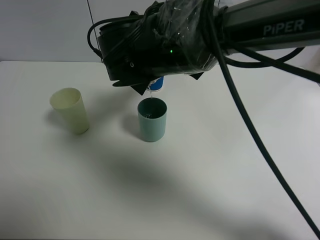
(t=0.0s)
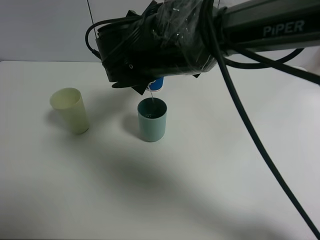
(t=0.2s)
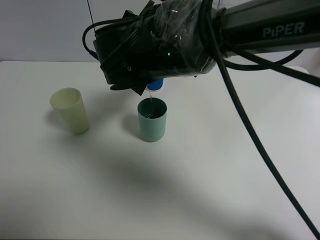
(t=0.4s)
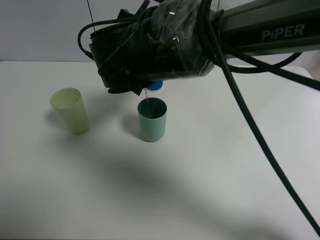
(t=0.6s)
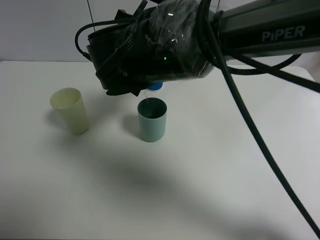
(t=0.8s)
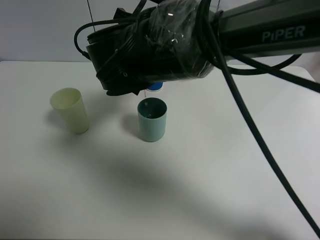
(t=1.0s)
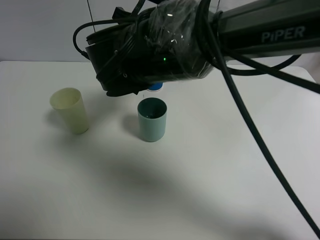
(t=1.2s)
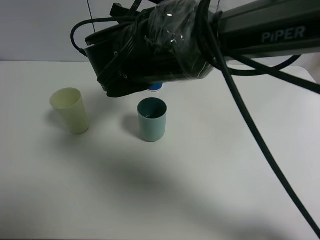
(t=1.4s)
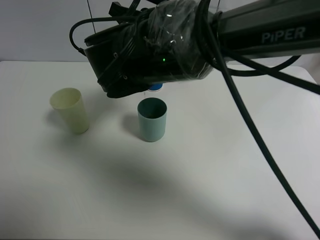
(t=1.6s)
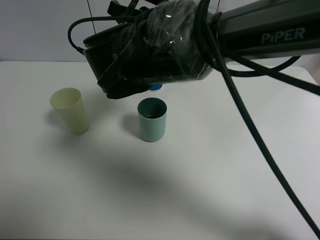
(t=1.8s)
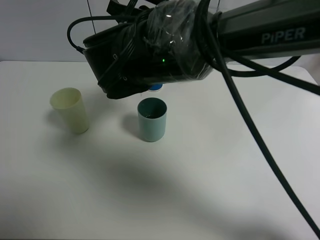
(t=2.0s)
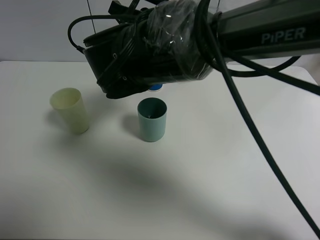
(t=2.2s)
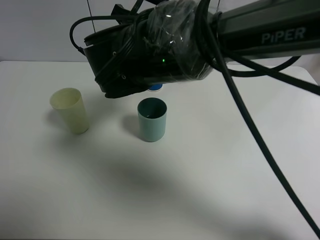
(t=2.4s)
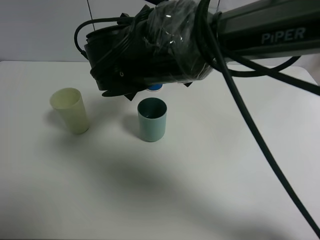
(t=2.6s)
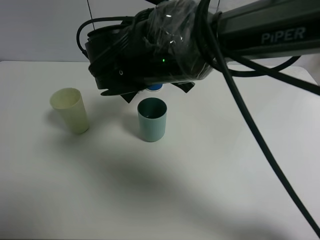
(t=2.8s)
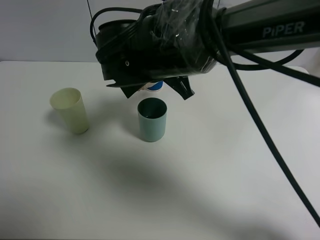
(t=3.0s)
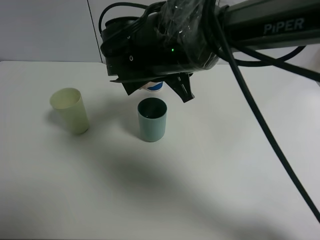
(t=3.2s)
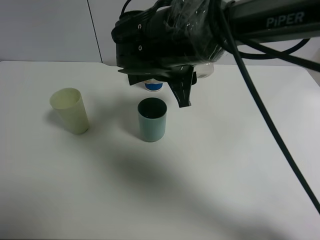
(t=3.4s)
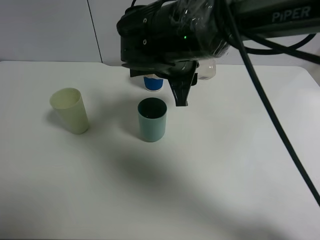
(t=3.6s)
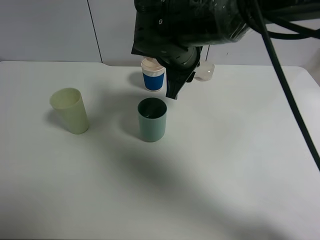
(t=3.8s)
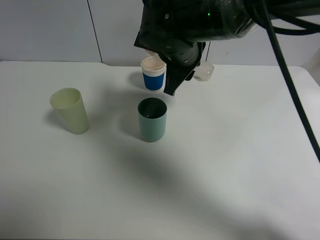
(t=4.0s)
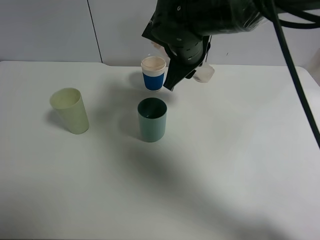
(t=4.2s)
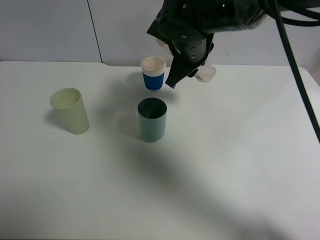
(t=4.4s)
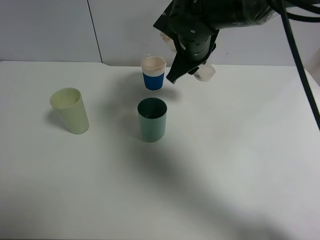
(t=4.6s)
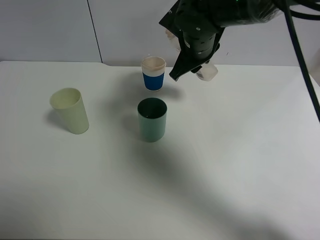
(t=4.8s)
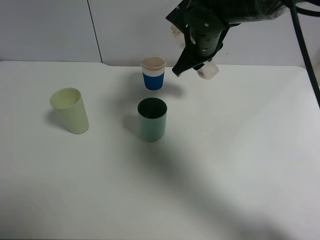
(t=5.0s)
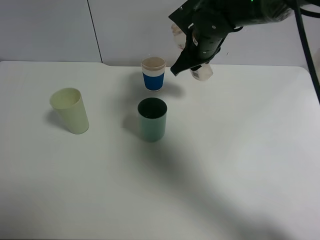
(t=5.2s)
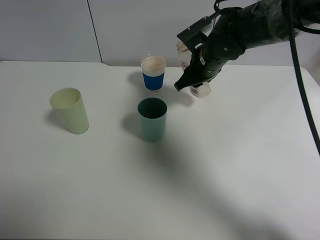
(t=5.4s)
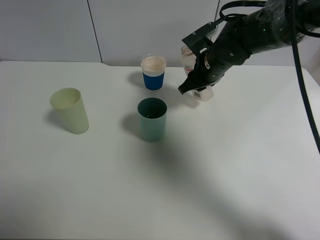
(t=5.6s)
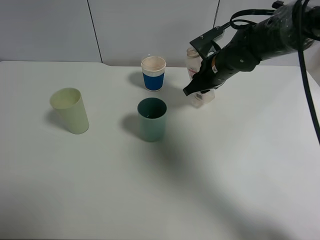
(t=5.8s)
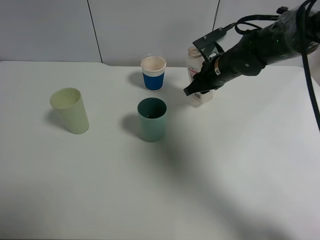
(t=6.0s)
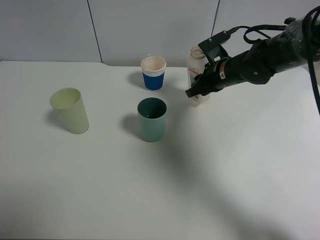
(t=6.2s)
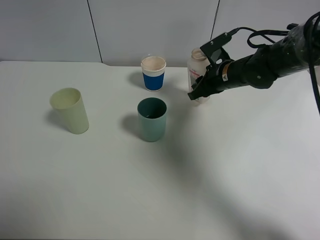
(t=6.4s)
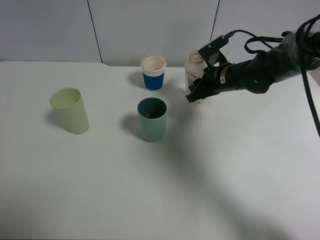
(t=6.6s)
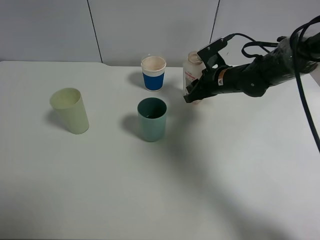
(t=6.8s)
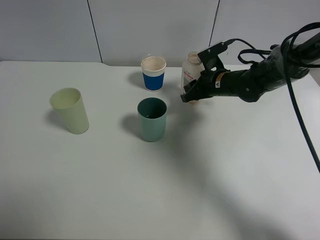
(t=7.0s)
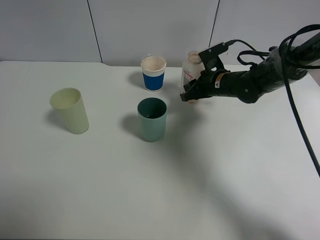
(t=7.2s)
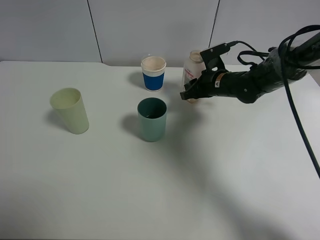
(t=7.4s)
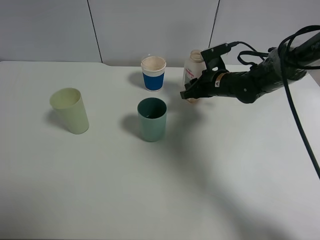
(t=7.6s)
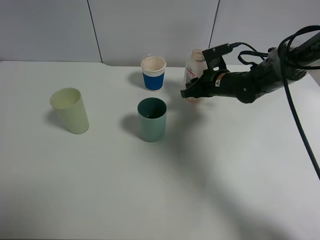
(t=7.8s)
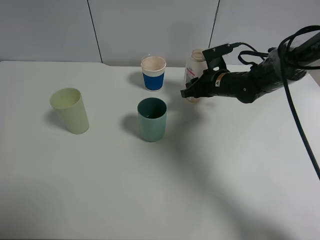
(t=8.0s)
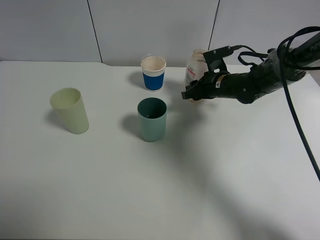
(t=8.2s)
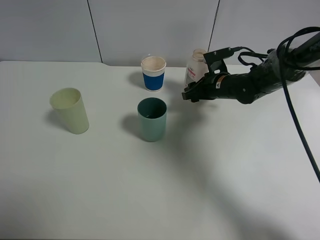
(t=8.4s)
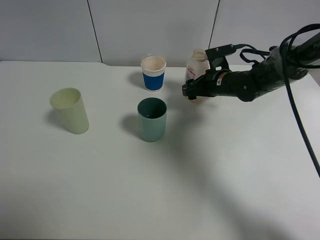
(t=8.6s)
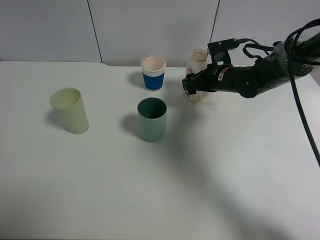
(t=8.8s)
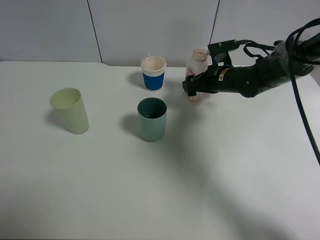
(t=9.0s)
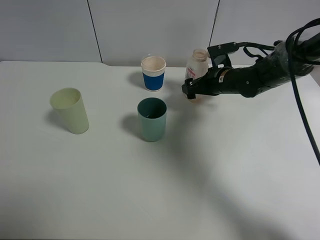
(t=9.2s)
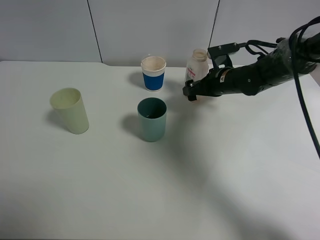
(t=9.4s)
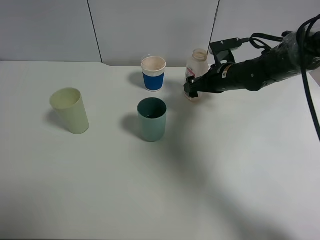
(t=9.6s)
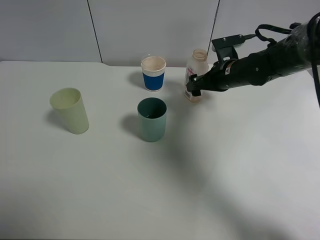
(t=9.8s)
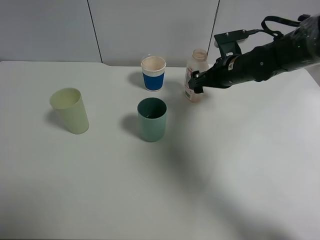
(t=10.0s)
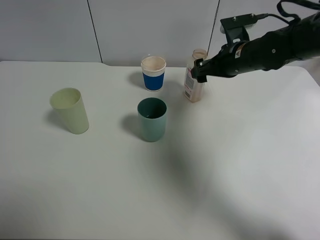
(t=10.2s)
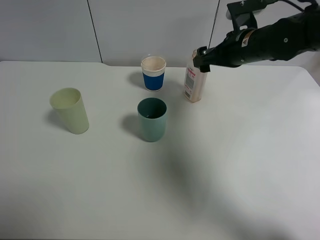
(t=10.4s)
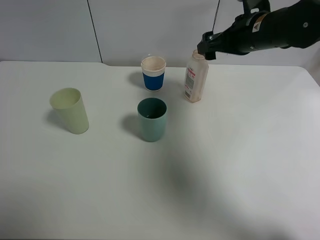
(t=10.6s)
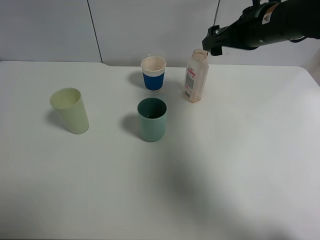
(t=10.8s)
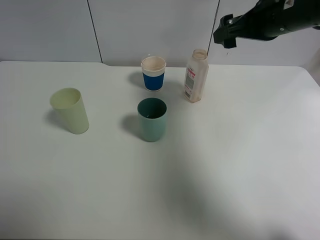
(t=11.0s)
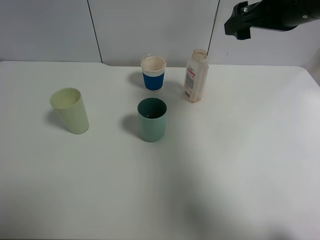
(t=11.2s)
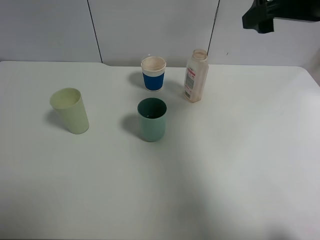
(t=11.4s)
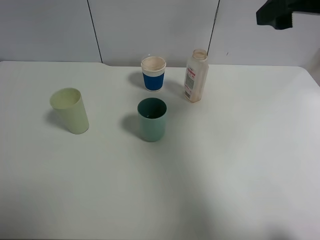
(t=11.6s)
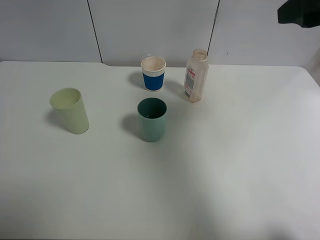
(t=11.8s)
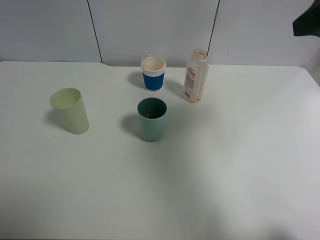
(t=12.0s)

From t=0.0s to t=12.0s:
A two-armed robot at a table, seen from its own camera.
Task of the whole recording: use a clamp to hold the bottle of the drink, pour the beverage into a random cup, then clamp the cup containing the drink and pour the drink into another random cup.
Step, from t=0.0s to t=3.6s: Pour the drink into the blue plastic cup with right gripper.
Step, from t=3.8s to t=10.0s: Place the drink bottle on the table with right gripper.
From t=0.0s to t=1.6s: The grippers make only small movements.
From t=3.0s to t=4.4s: The right gripper heads forward and to the right, covering about 10 cm.
From t=4.4s to t=6.0s: The right gripper heads to the right and downward, covering about 10 cm.
From t=6.0s to t=7.6s: The right gripper heads downward, covering about 5 cm.
From t=7.6s to t=9.0s: The right gripper opens its fingers.
From t=9.0s to t=10.4s: The right gripper moves upward, about 10 cm.
From t=10.4s to t=12.0s: The right gripper moves upward, backward and to the right, roughly 25 cm.

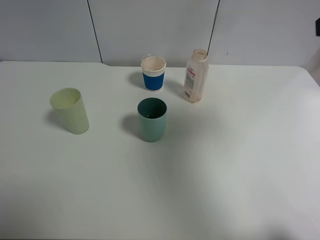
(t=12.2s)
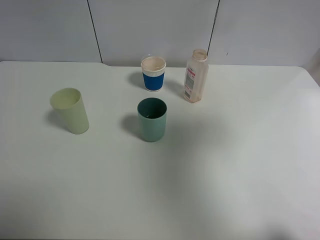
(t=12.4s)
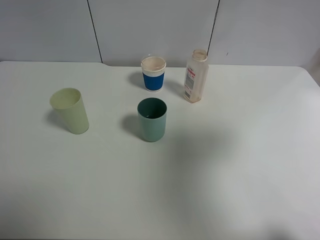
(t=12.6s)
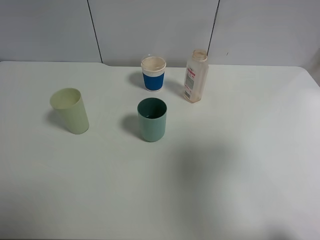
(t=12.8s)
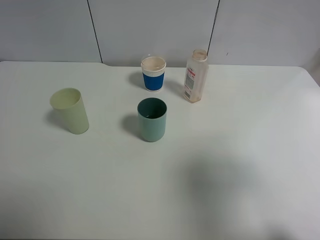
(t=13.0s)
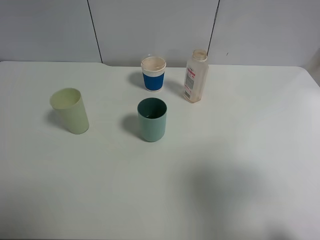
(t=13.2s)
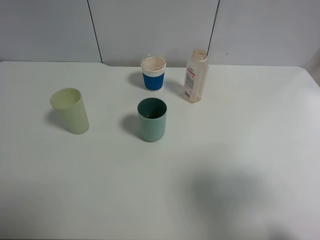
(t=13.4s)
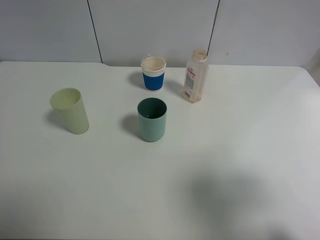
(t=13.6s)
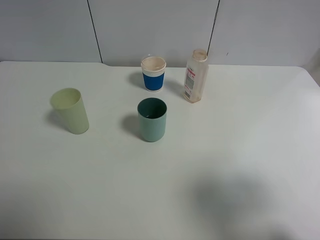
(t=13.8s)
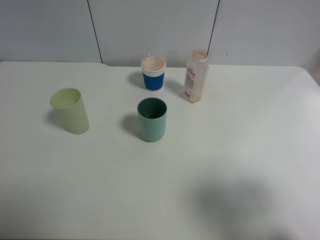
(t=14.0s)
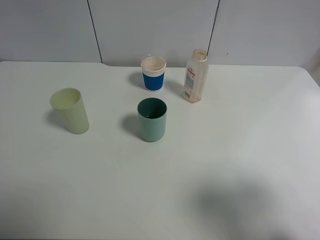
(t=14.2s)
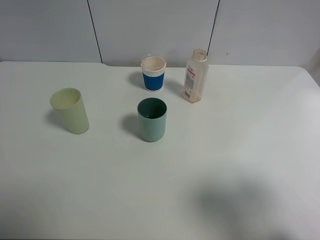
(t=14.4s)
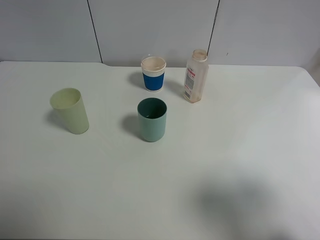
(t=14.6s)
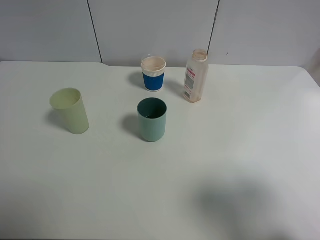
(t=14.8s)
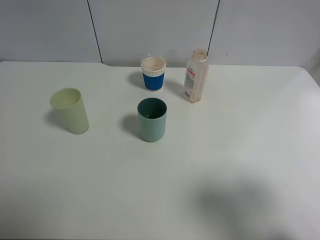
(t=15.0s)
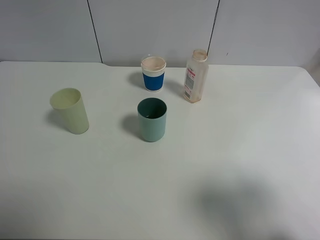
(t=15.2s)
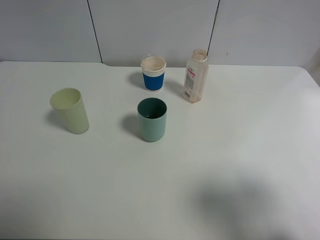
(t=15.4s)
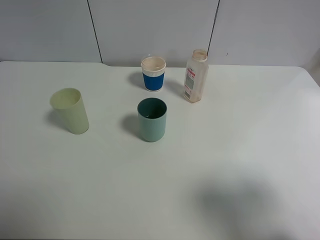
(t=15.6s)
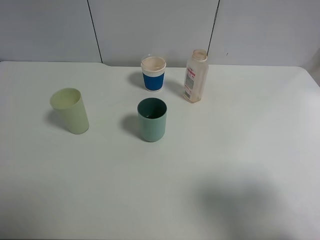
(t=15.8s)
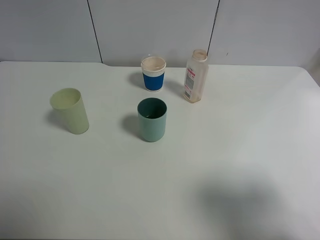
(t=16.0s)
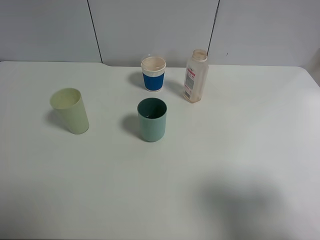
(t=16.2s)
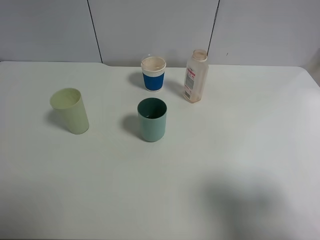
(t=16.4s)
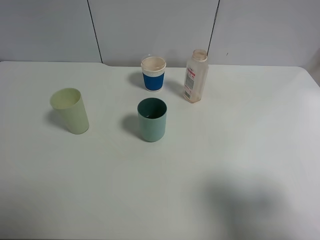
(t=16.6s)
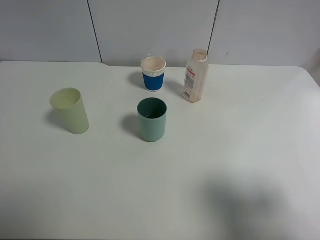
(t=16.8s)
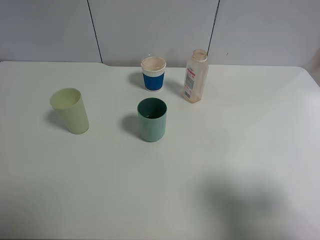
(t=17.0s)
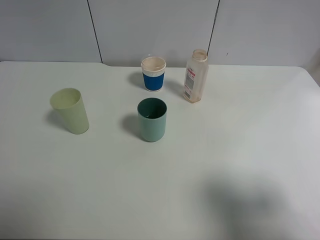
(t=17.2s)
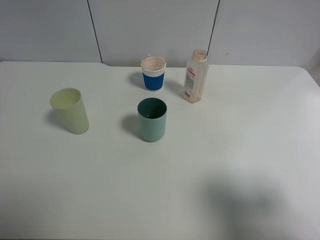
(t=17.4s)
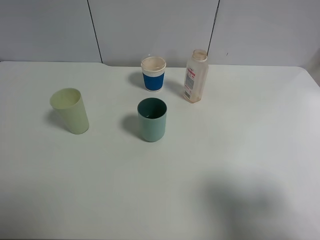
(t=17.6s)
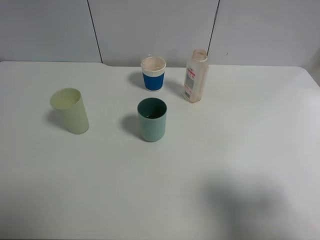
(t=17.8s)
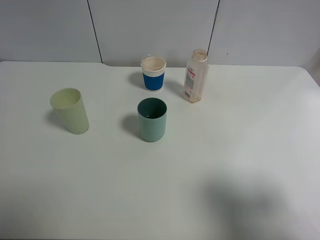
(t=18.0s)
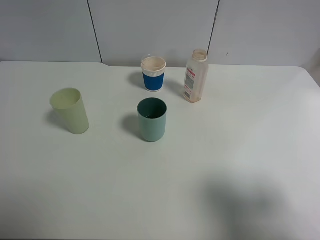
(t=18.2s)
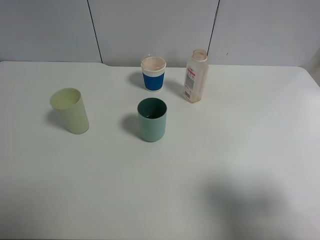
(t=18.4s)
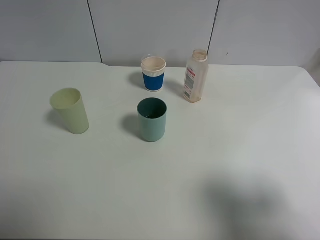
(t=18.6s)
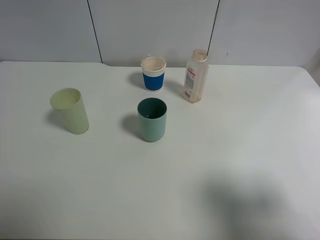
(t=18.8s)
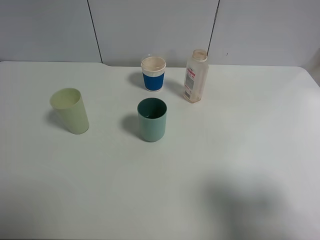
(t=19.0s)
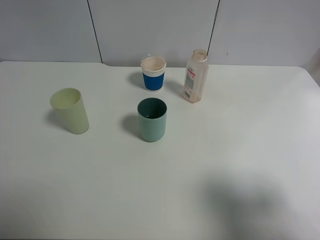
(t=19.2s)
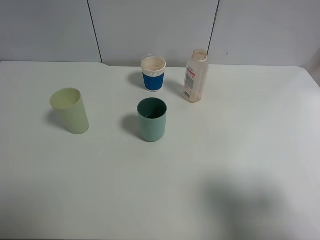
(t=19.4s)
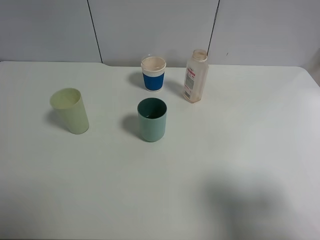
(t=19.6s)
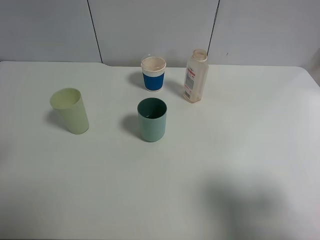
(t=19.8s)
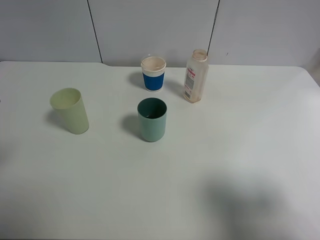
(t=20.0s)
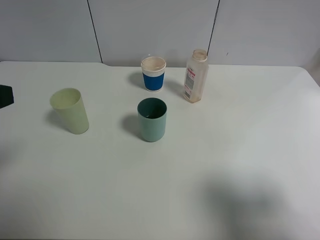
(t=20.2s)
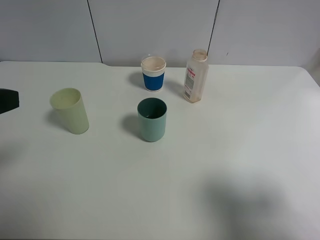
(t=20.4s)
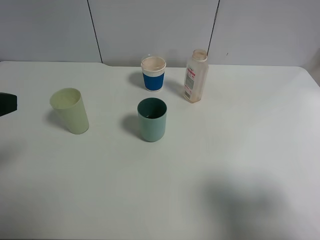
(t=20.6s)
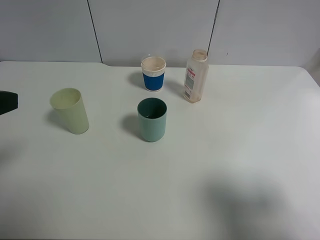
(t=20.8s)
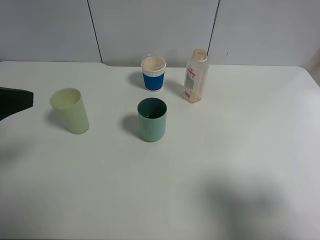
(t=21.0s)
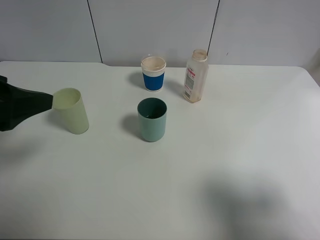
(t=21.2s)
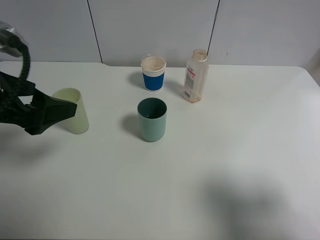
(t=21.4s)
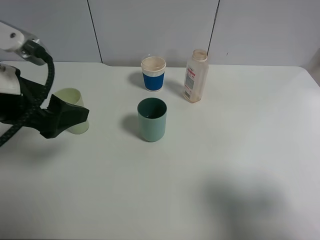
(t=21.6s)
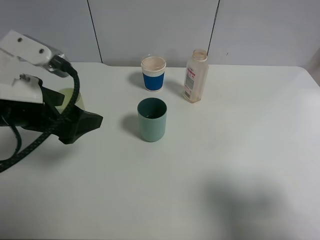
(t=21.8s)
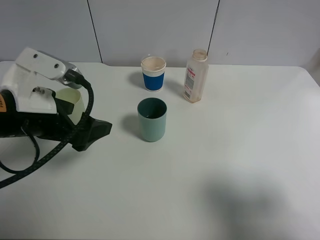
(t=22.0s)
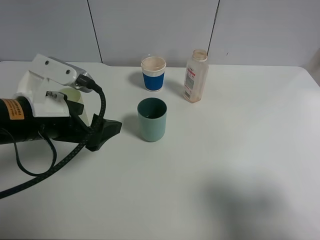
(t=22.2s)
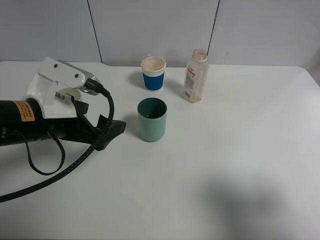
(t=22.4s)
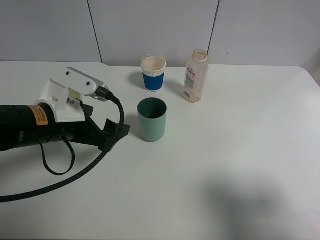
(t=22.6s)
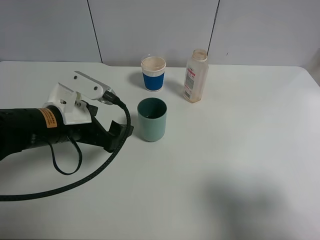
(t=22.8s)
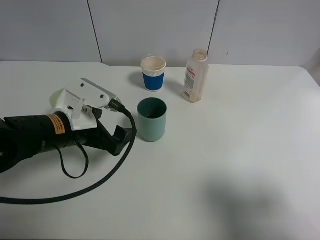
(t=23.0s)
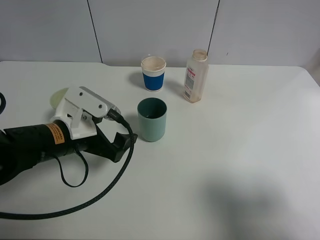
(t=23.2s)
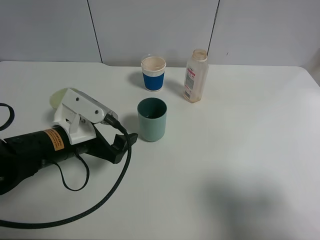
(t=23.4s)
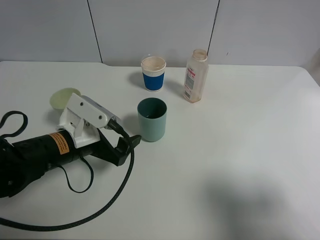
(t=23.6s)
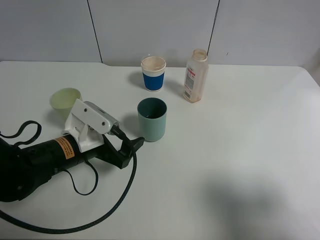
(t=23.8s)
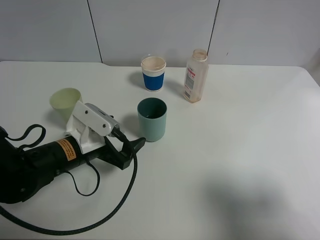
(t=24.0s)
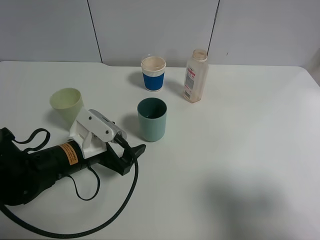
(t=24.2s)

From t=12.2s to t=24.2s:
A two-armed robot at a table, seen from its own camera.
Task of the whole recording: use a clamp to hold the bottle of the drink, pour the beverage into a random cup, then clamp the cup containing the drink and pour the drink into another random cup.
From t=12.2s to t=13.8s: The right gripper heads backward and downward, covering roughly 15 cm.
From t=16.6s to t=18.2s: Neither gripper changes place.
From t=19.8s to t=21.2s: The left gripper goes approximately 5 cm forward.
From t=21.2s to t=22.6s: The left gripper heads downward, to the right and forward, covering approximately 15 cm.
From t=22.6s to t=24.2s: The left gripper moves downward, about 10 cm.
